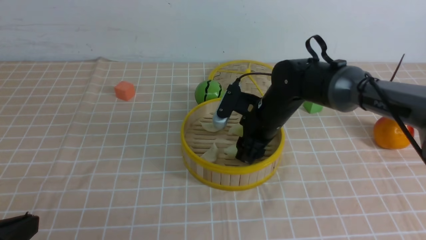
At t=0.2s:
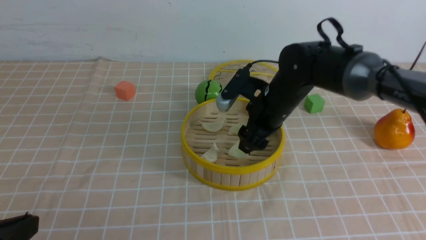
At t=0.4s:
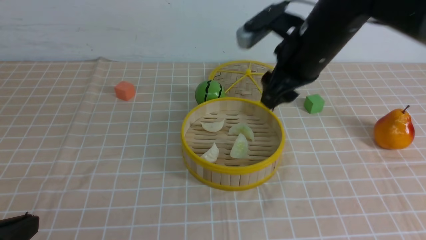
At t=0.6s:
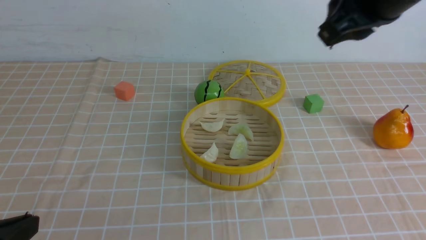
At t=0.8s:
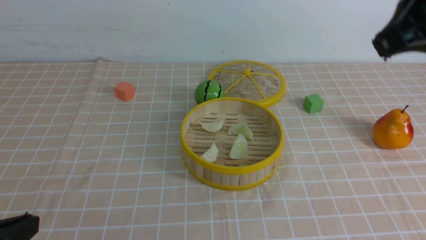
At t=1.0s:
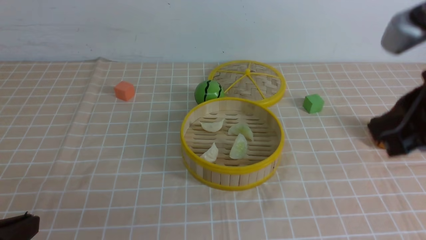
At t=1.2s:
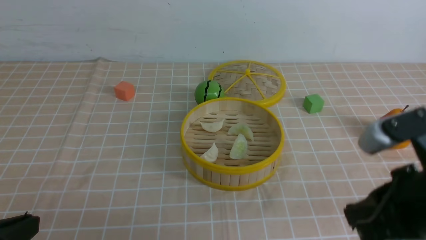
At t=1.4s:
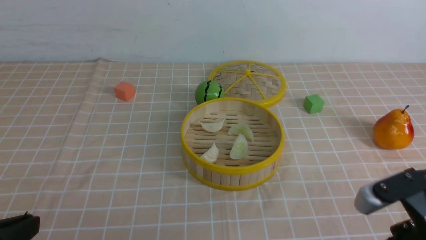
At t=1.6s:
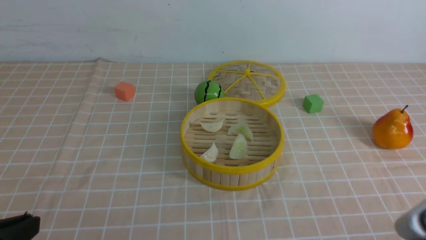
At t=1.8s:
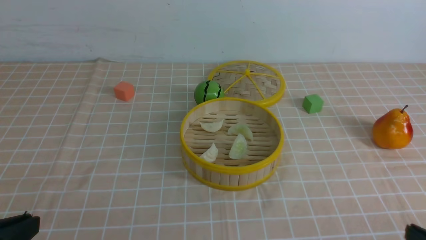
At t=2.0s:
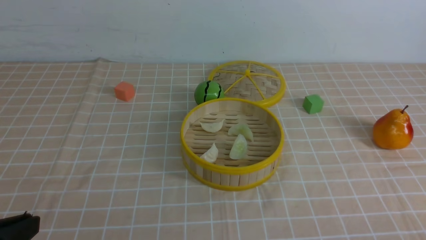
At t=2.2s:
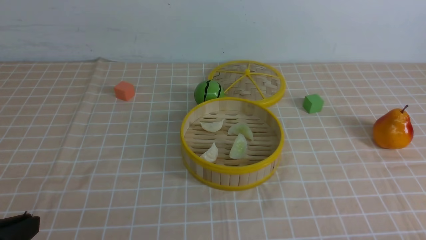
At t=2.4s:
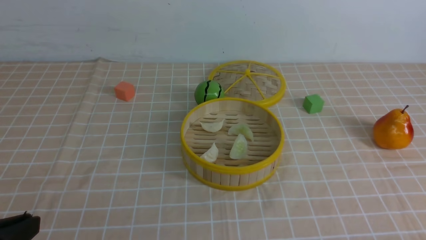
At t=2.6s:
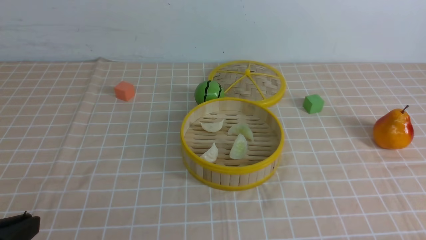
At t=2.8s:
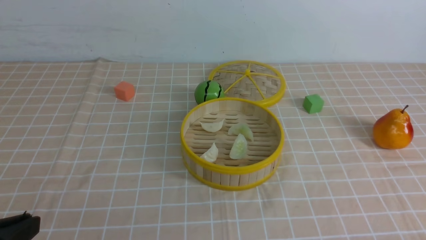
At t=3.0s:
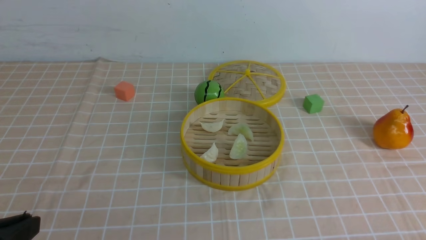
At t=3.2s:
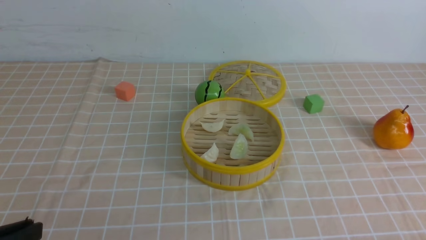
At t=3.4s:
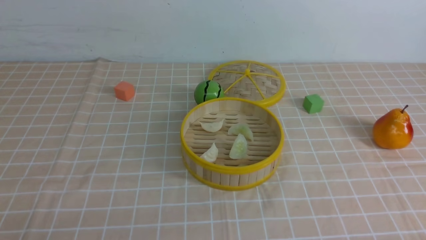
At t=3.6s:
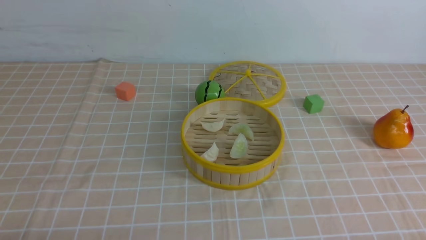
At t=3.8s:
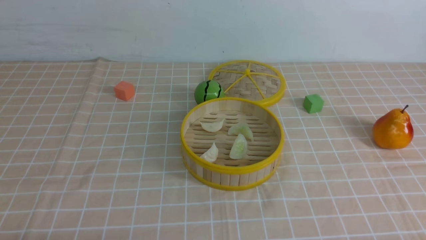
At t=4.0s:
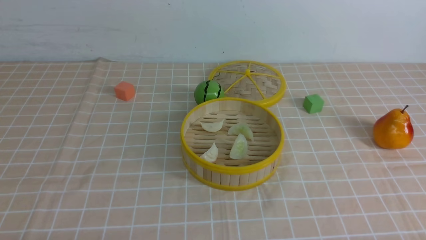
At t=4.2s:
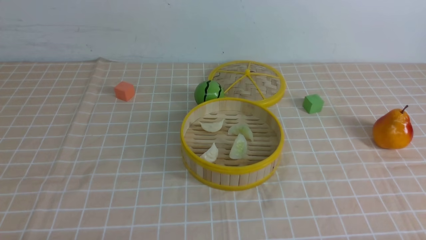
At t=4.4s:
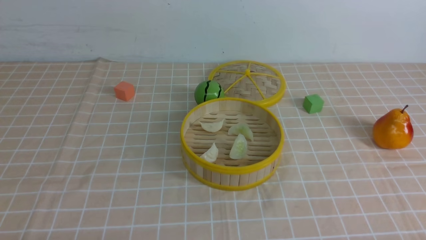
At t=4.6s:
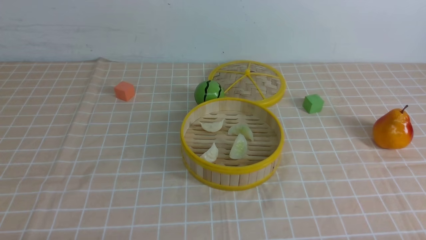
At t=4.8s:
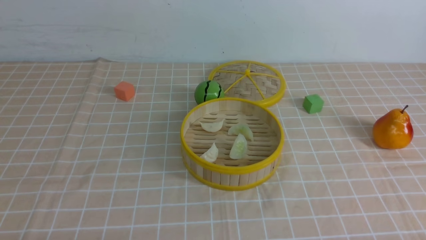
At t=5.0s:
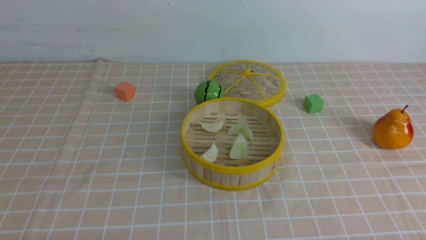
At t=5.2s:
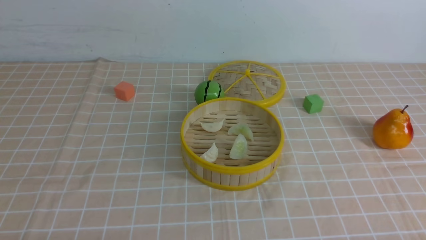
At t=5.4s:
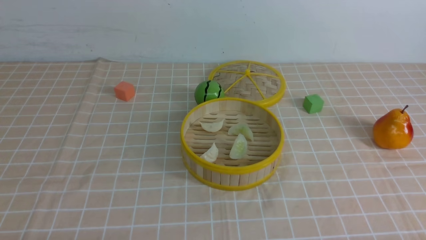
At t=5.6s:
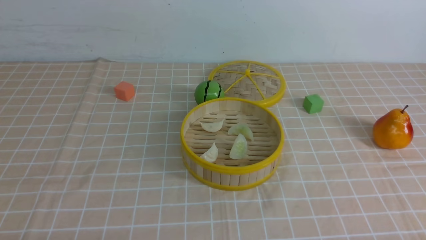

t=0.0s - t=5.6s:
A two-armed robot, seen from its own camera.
Task of the whole recording: put the dumplings into the steamer on the table with the brown tablecloth.
t=0.0s - t=1.4s: The right gripper travels backward and to the right by approximately 30 cm, and closes its fingers.
t=1.4s - t=2.8s: The right gripper heads backward, downward and to the right, covering about 15 cm.
t=2.8s - t=4.2s: The left gripper moves downward, roughly 10 cm.
t=4.2s - t=5.6s: Both grippers stay put.
